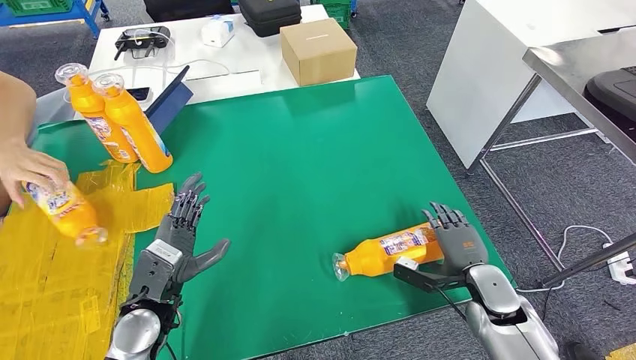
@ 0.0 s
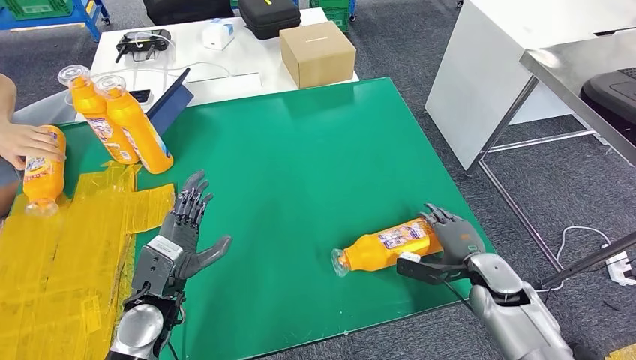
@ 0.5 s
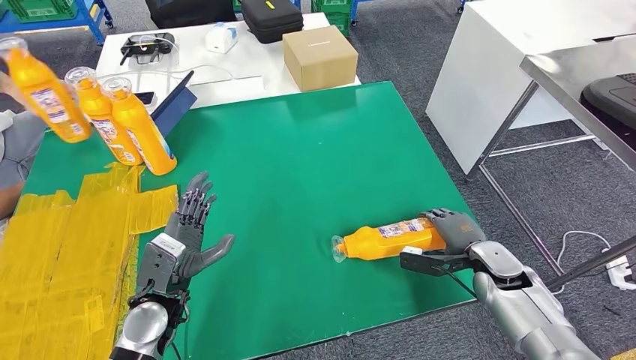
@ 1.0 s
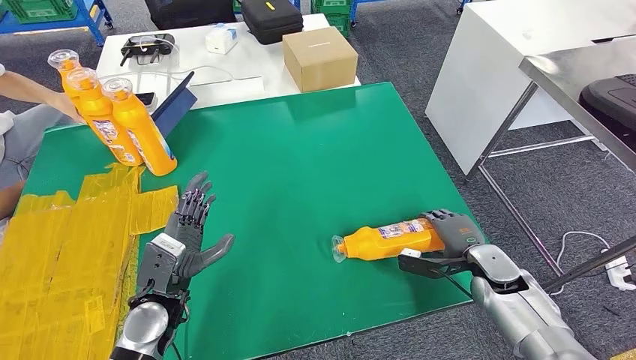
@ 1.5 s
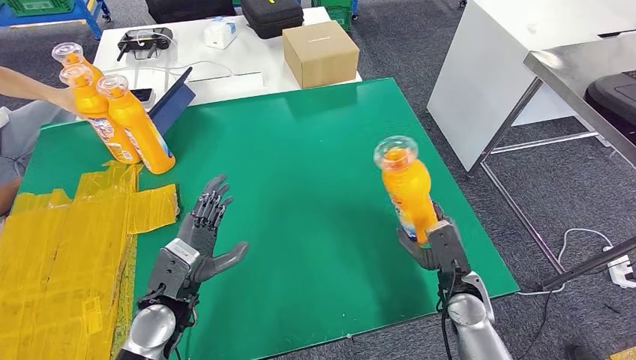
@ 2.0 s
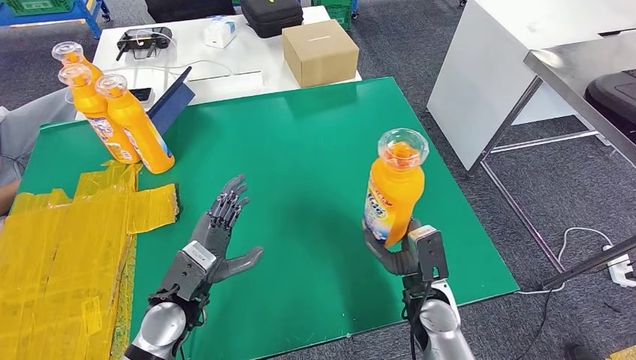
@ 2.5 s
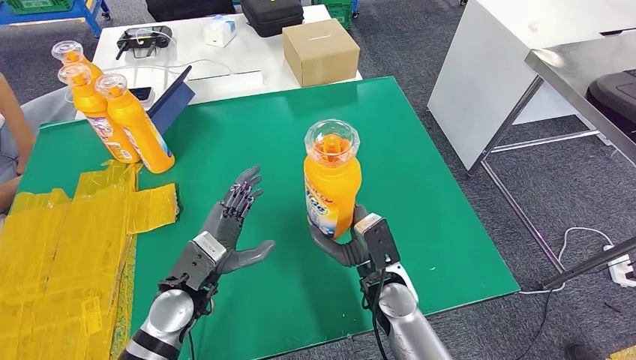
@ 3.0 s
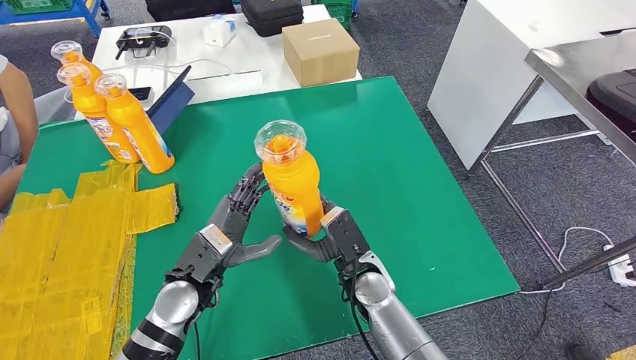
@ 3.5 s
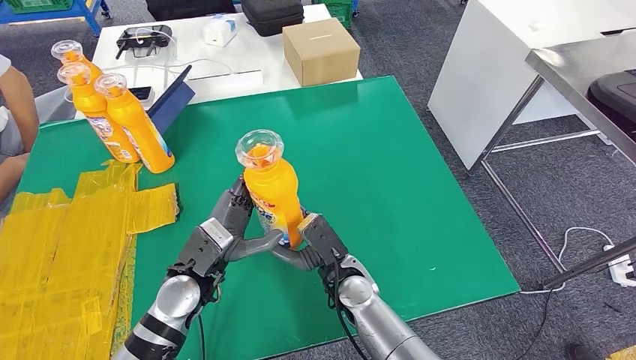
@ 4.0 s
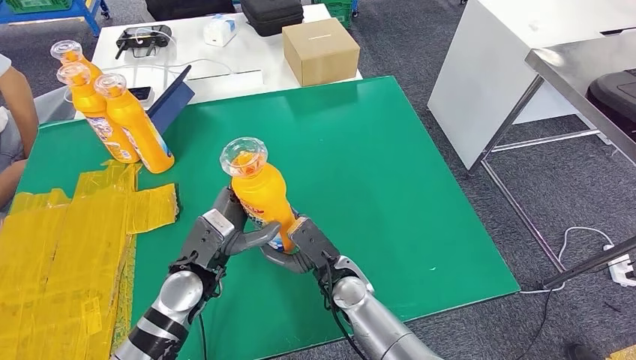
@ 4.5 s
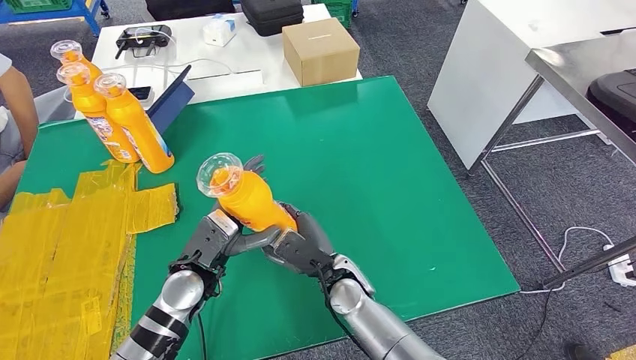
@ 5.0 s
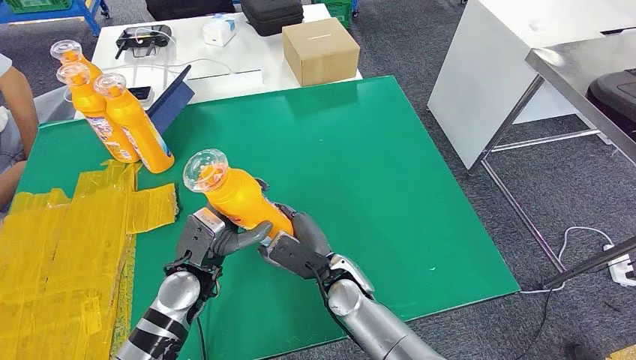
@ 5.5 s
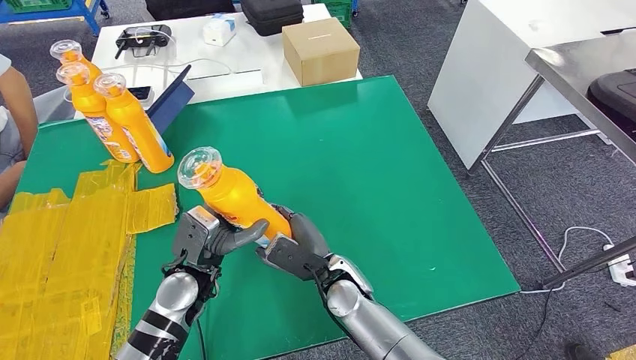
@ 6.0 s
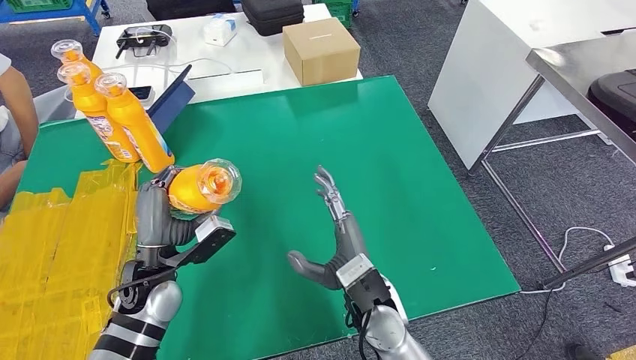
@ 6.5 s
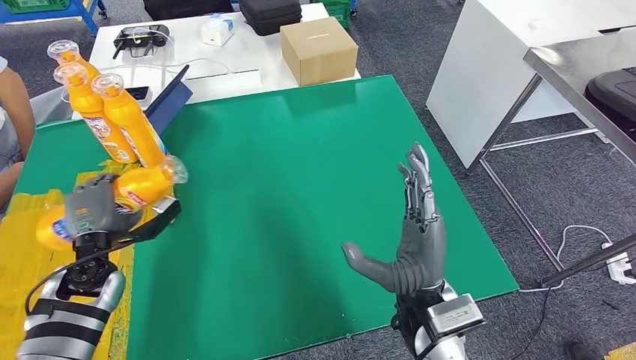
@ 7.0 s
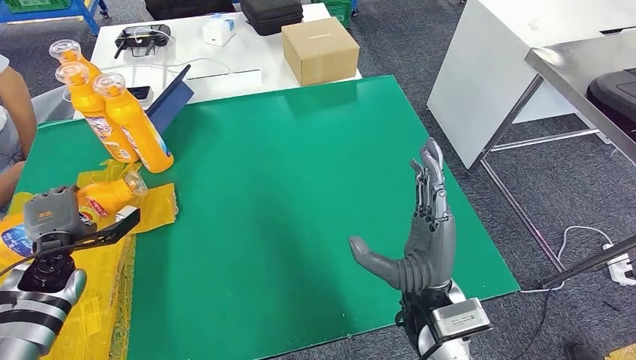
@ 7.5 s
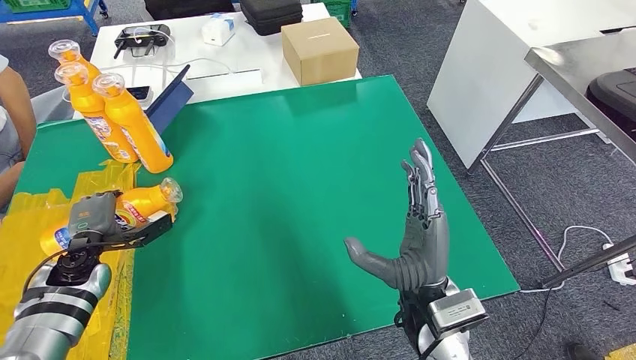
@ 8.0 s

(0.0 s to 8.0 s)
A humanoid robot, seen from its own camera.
Step, 2.0 s - 3.5 s: Pick up the fast-moving consumer goods bottle from the table.
Step, 5.0 s - 8.0 s: Flip the fast-moving consumer goods bottle to the front side.
6.0 s - 8.0 s: The left hand heads to the left, covering some 25 cm. Meanwhile the right hand is displaced to the right, upward and backward by some 15 cm.
